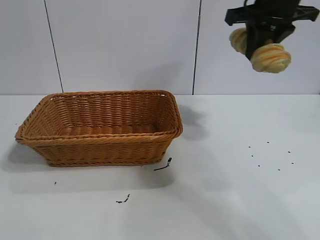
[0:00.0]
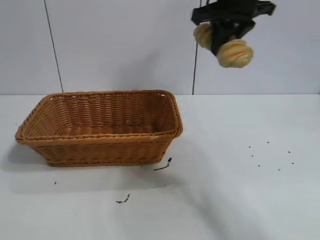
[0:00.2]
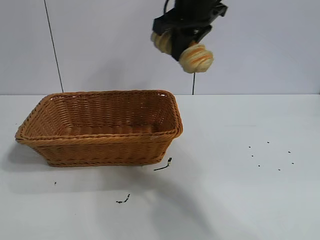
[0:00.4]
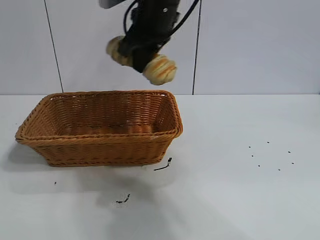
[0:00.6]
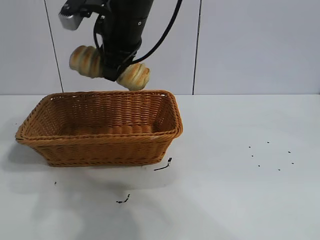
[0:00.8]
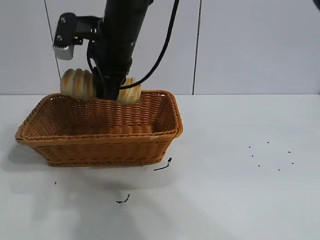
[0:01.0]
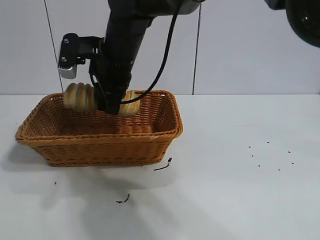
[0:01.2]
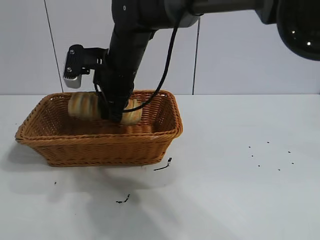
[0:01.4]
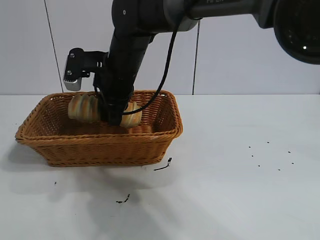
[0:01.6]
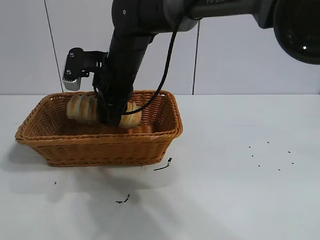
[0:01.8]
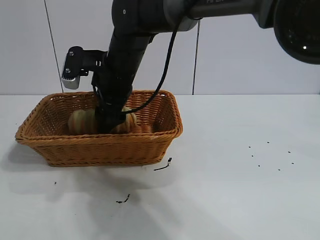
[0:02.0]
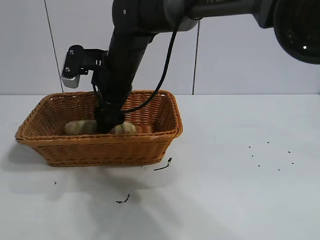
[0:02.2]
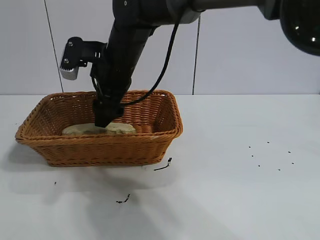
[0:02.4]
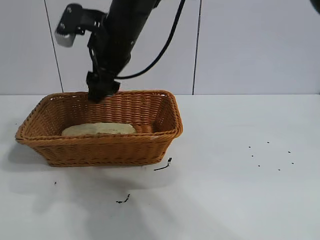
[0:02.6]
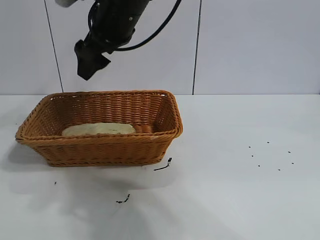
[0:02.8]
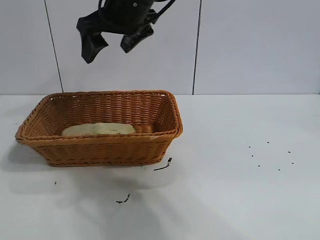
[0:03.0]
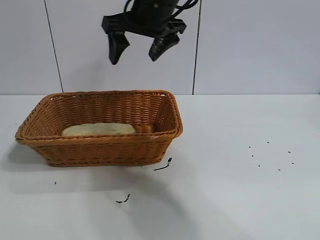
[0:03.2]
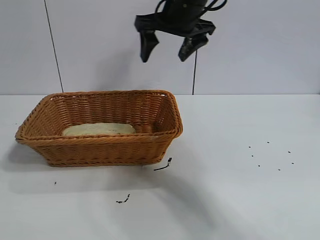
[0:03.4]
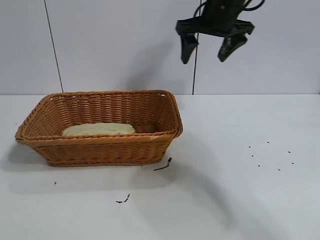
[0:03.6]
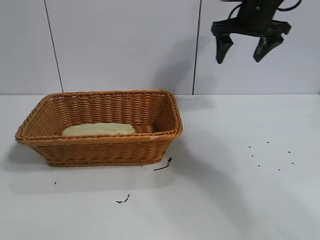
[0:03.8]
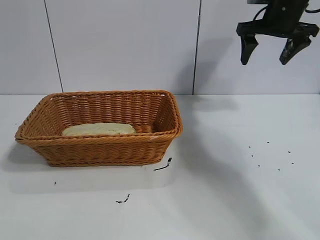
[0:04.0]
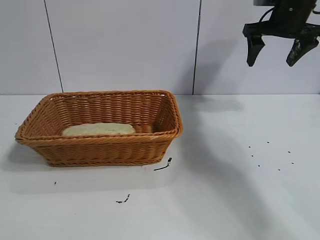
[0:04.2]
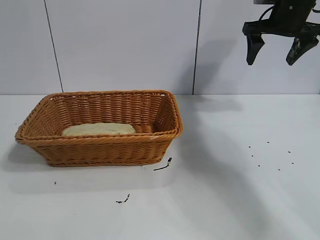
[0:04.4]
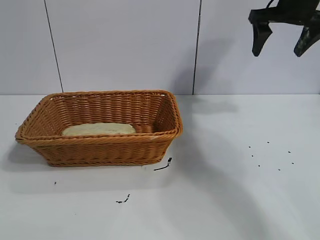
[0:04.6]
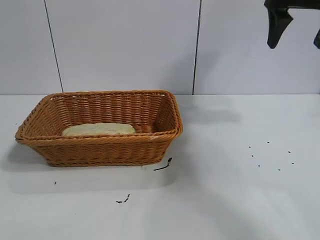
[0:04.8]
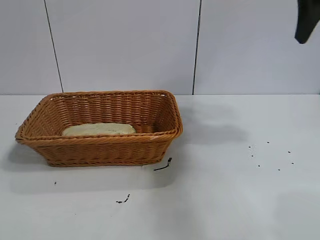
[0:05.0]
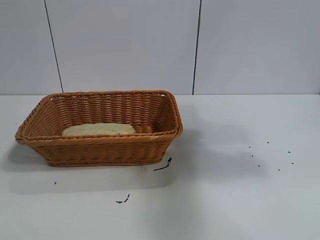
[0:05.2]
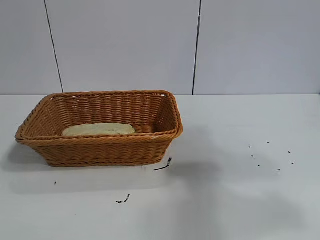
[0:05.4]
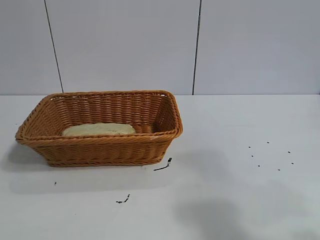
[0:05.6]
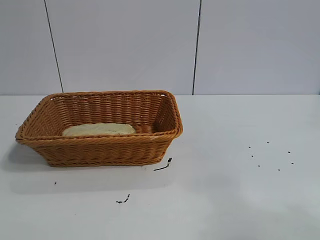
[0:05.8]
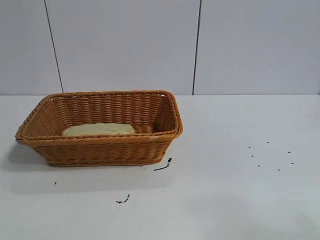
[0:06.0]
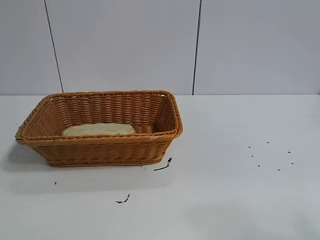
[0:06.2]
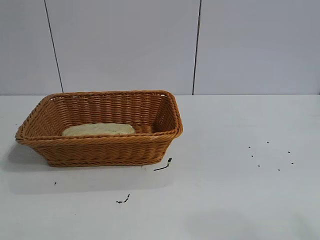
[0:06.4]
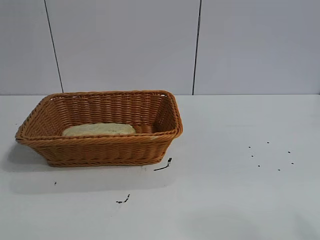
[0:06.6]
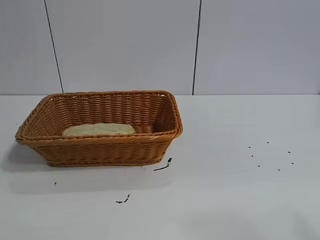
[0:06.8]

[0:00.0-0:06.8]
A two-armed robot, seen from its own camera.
Task of the whole recording: pick up the long bread and put it into the basket.
Step, 0:00.0 to 0:02.4: Place the long bread in the basket with right gripper.
